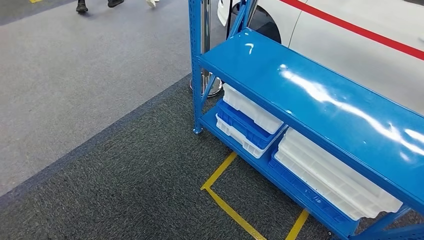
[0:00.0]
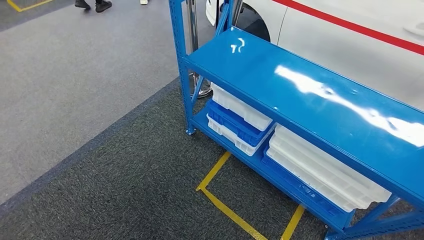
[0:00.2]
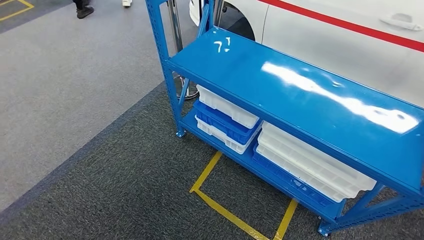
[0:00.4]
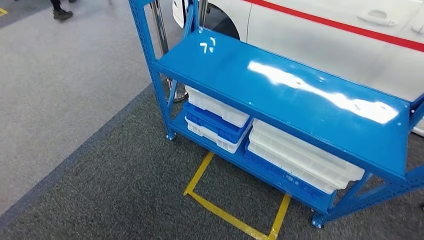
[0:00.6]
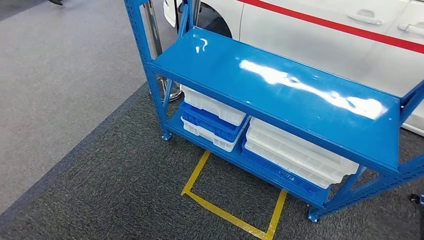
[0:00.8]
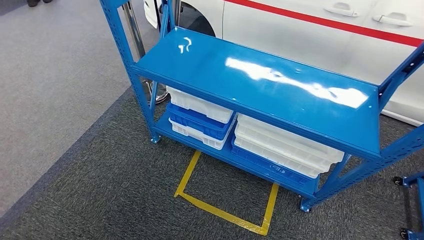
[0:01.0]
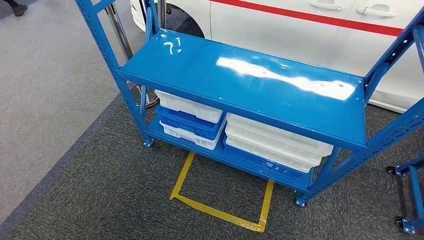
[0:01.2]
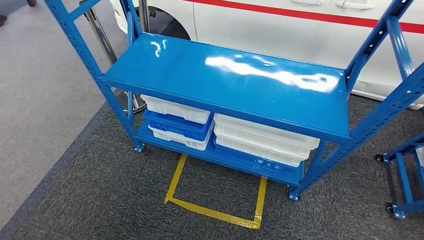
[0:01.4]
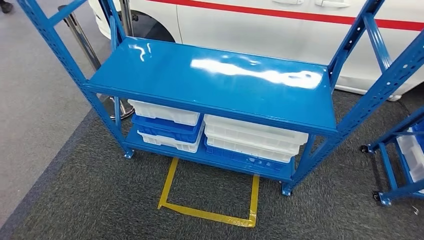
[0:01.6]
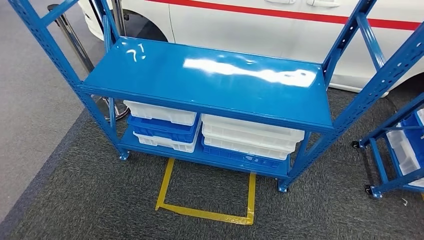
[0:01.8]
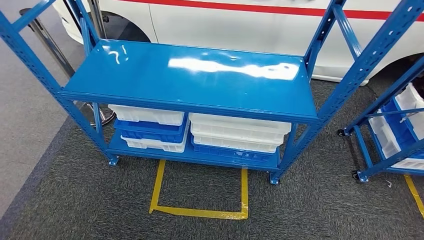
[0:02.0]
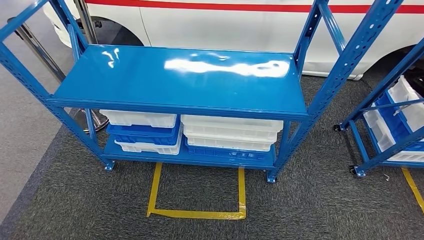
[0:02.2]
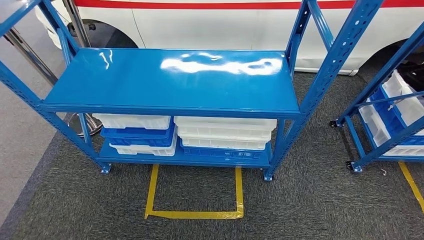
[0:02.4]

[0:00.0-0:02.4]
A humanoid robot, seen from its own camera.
Step, 0:00.0 to 0:02.4: Return to the initial position at the shelf.
